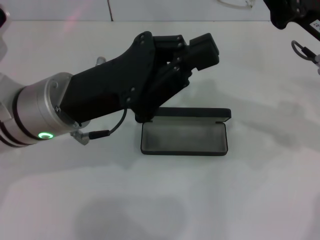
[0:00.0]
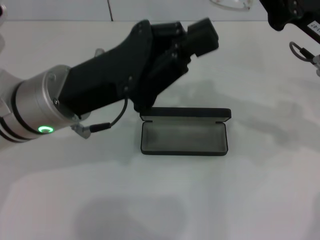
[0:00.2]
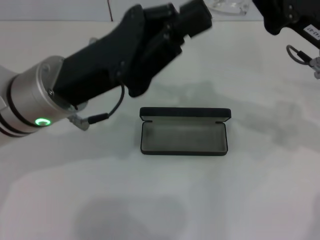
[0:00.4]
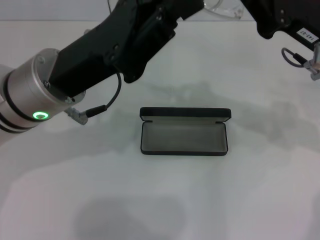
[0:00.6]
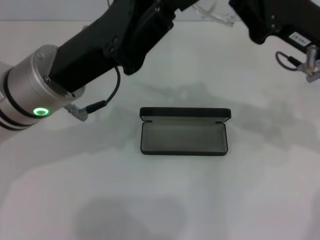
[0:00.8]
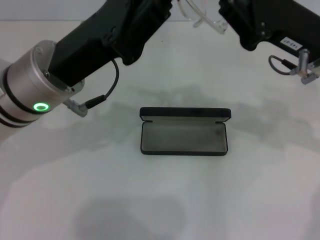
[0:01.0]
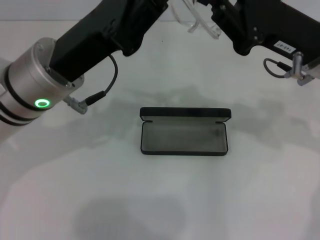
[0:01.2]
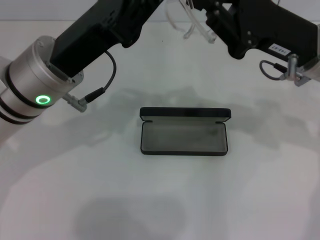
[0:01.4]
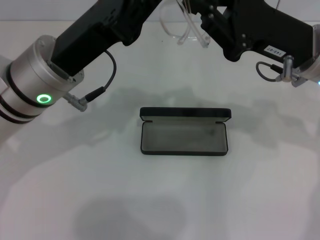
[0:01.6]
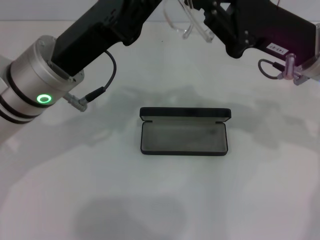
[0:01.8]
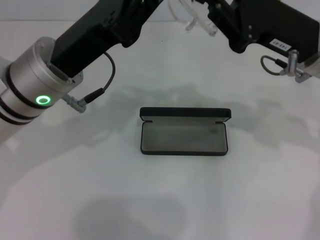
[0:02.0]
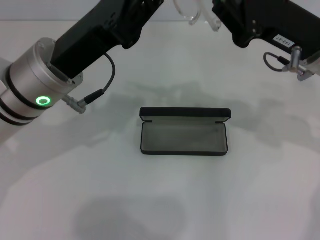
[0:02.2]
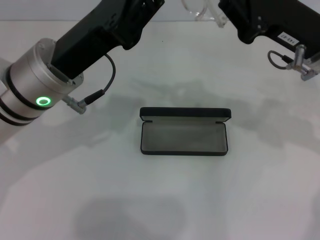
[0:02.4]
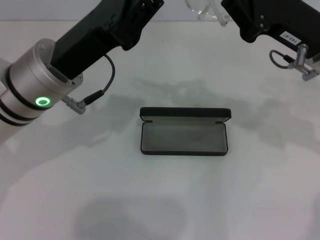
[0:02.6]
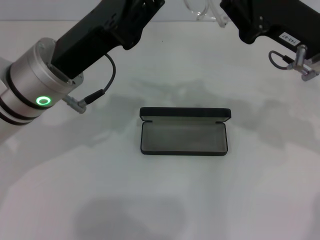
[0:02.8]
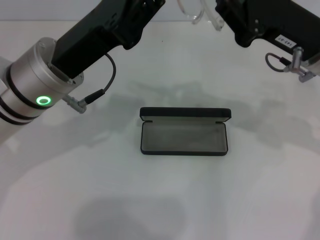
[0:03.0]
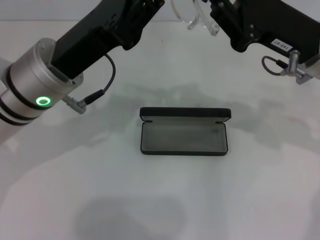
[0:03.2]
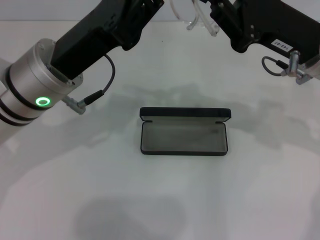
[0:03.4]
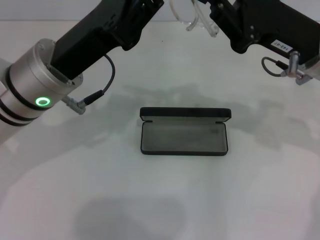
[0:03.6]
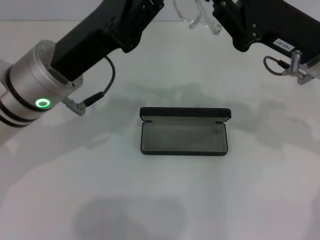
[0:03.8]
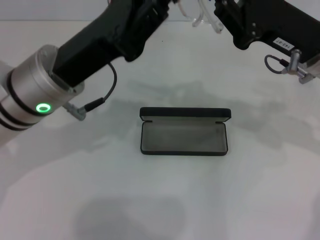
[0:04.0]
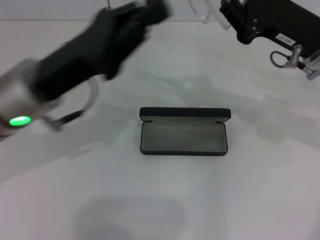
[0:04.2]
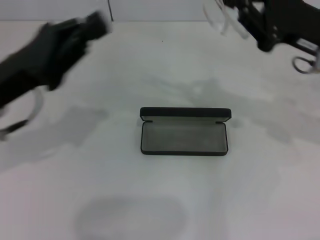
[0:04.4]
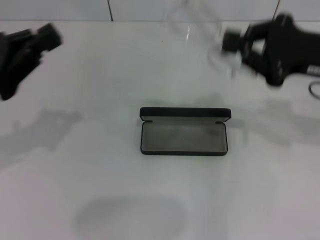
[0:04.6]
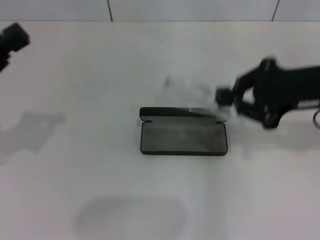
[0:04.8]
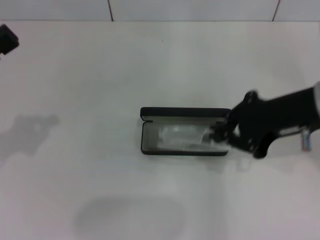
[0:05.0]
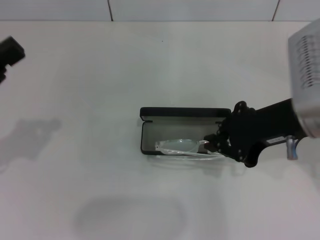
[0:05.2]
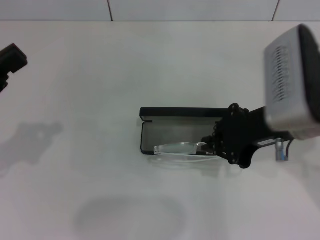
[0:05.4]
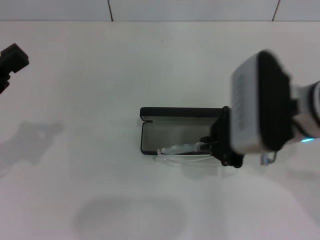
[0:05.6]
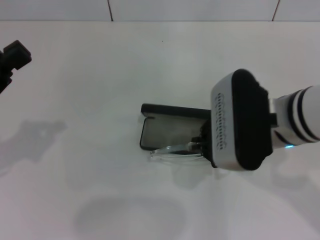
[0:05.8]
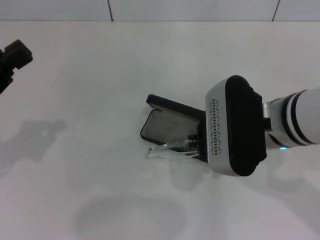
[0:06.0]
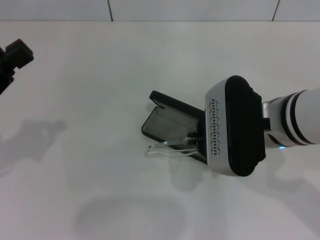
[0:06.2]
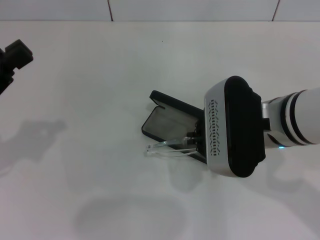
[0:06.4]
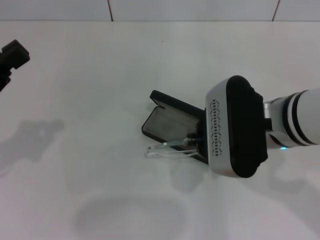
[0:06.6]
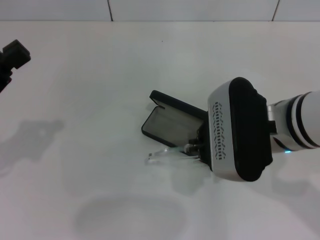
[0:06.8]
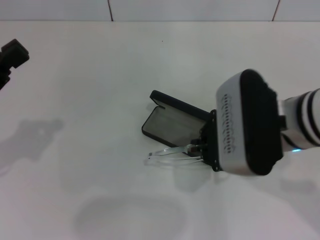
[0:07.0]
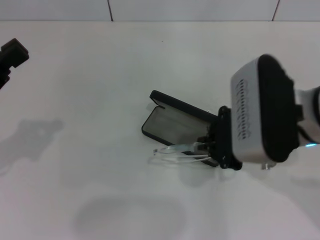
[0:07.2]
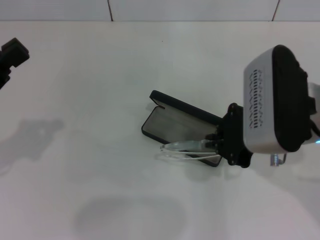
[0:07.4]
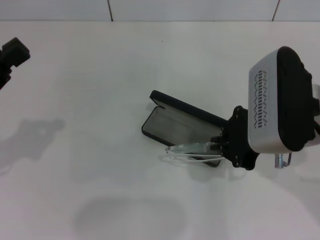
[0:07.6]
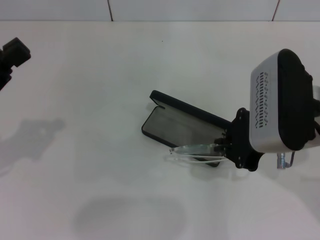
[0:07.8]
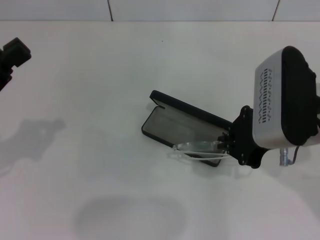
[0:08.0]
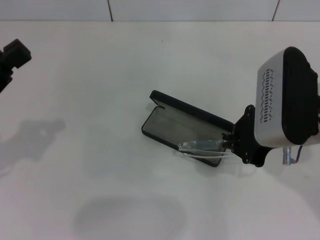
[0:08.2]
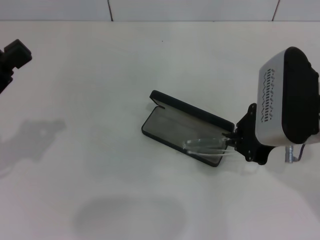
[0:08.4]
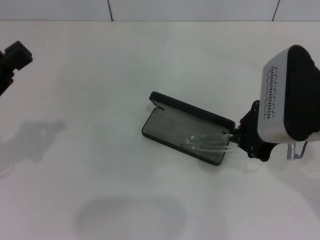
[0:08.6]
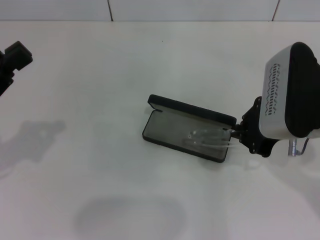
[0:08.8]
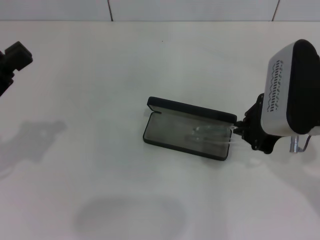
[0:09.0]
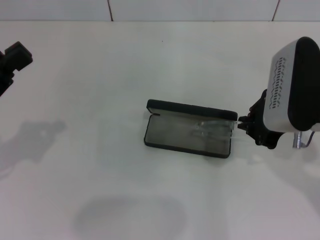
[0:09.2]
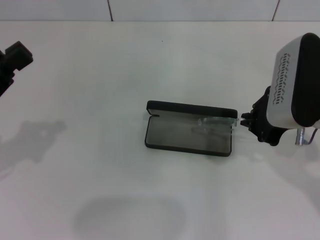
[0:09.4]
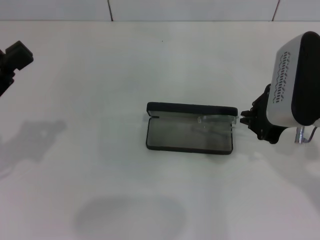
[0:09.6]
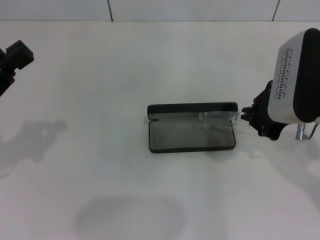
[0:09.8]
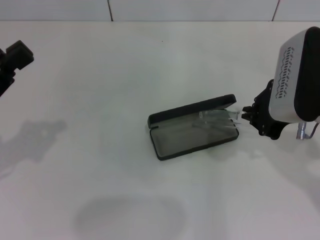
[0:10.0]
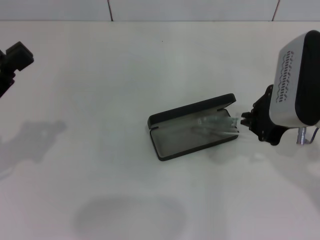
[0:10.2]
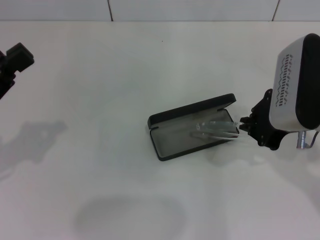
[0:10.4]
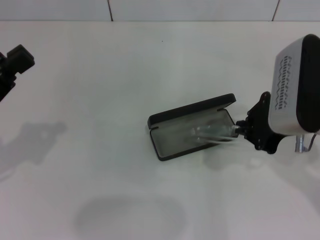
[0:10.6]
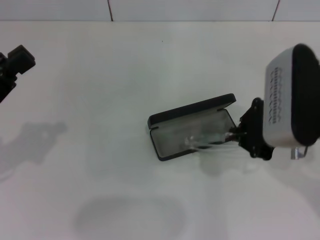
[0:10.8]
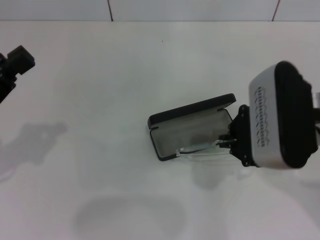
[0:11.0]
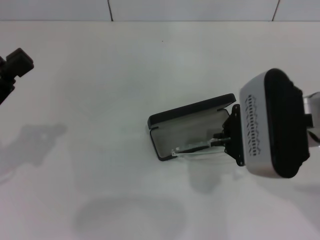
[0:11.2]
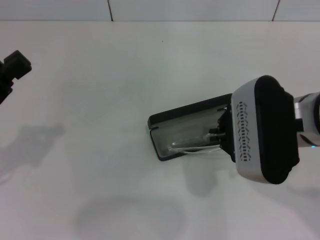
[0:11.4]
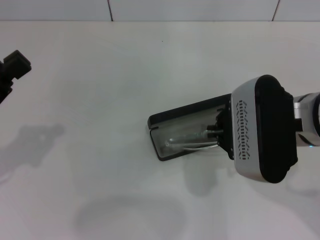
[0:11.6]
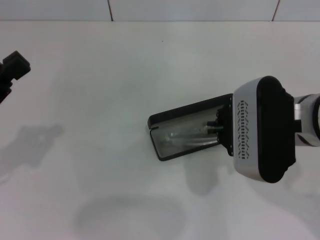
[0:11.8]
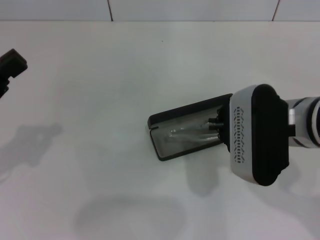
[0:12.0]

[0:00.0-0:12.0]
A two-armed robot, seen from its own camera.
0:01.6 to 0:03.0: There are only small adjustments of the grippers.
0:03.0 to 0:04.4: The left gripper heads to the left, covering approximately 10 cm.
0:04.4 to 0:06.0: The right gripper heads to the left and backward, covering about 15 cm; the left gripper shifts approximately 5 cm to the left.
0:06.0 to 0:07.6: The grippers stay close to where they were, moving slightly.
0:07.6 to 0:10.4: There are only small adjustments of the grippers.
0:10.4 to 0:12.0: The right gripper changes place by roughly 5 cm.

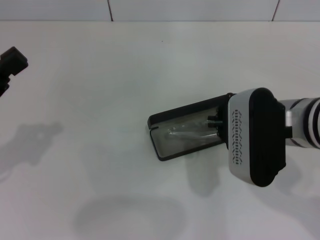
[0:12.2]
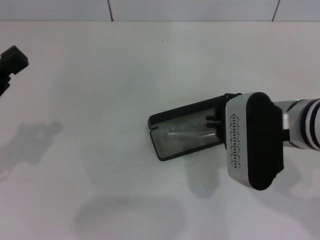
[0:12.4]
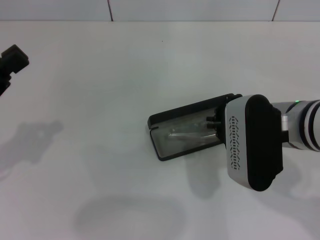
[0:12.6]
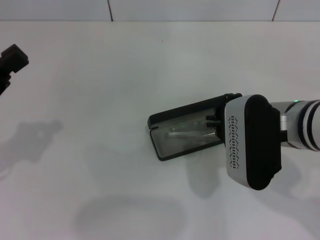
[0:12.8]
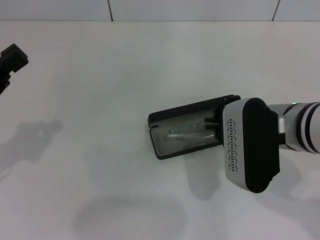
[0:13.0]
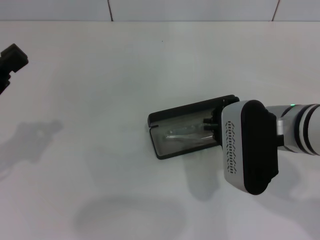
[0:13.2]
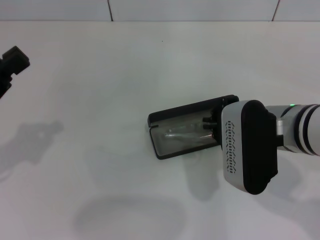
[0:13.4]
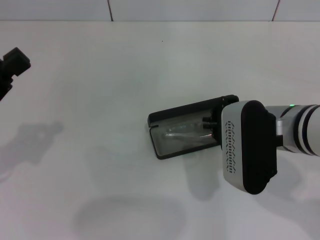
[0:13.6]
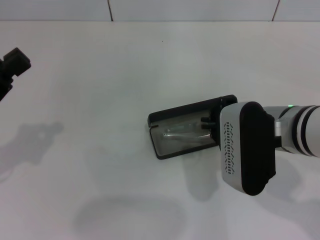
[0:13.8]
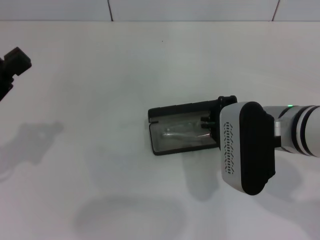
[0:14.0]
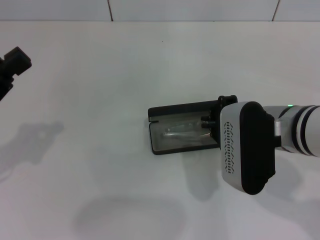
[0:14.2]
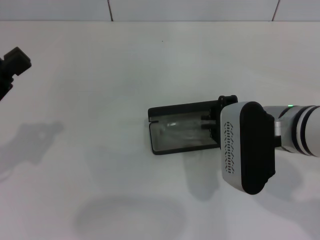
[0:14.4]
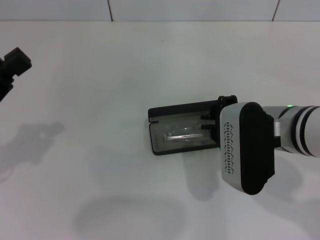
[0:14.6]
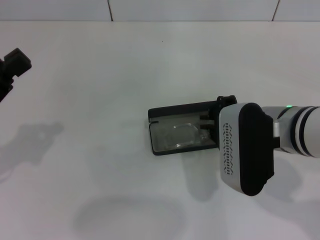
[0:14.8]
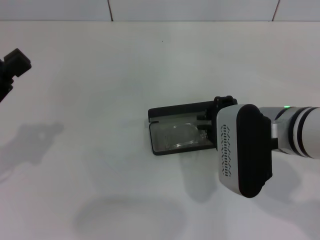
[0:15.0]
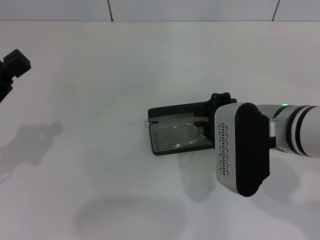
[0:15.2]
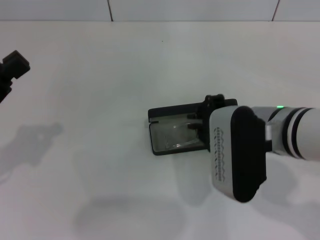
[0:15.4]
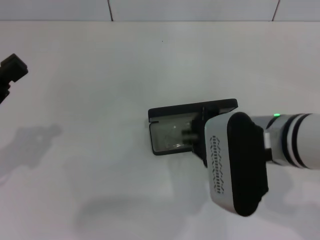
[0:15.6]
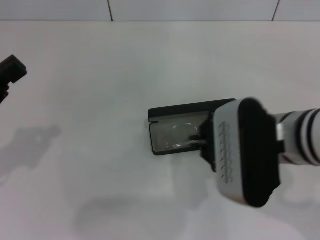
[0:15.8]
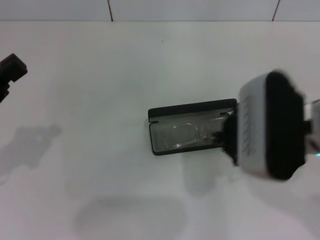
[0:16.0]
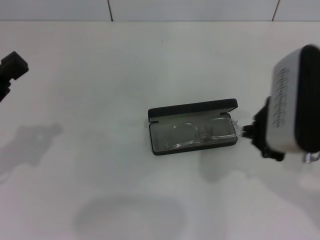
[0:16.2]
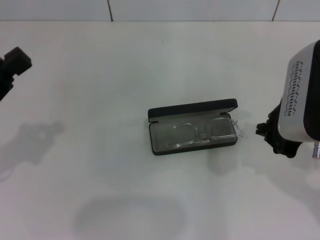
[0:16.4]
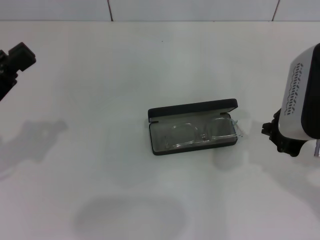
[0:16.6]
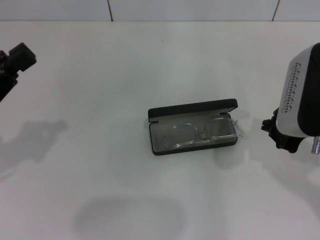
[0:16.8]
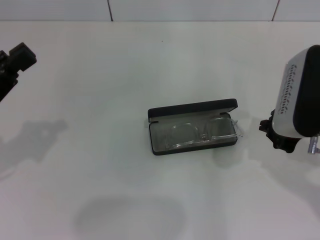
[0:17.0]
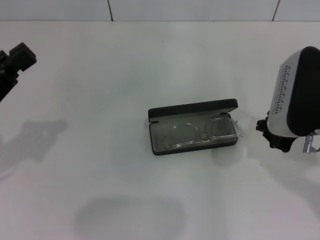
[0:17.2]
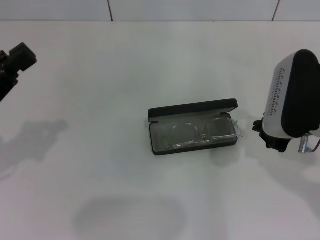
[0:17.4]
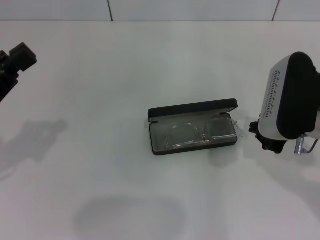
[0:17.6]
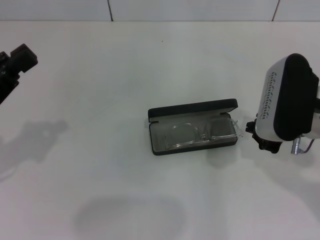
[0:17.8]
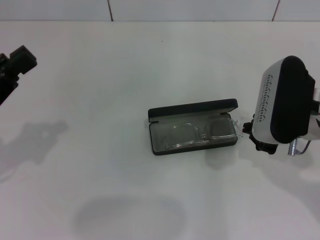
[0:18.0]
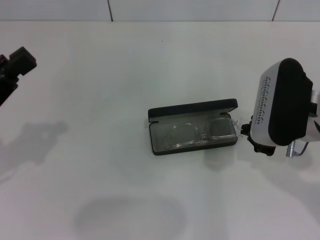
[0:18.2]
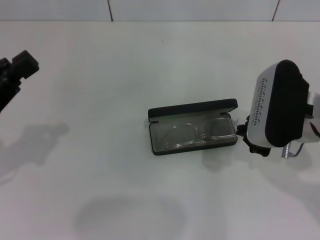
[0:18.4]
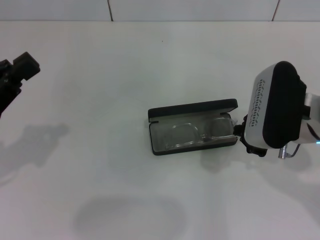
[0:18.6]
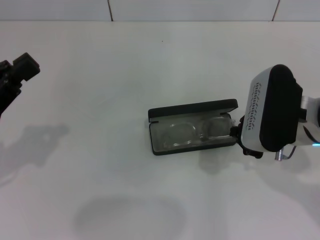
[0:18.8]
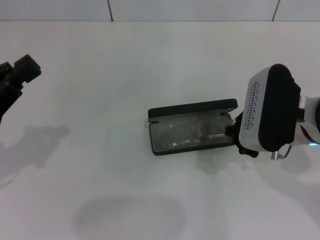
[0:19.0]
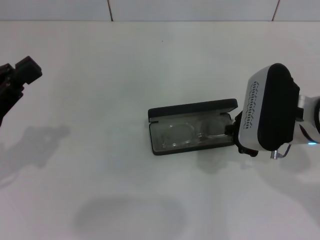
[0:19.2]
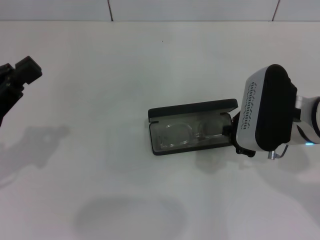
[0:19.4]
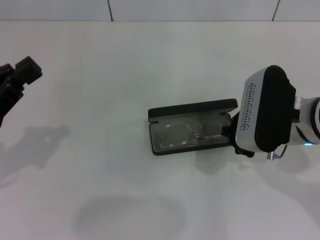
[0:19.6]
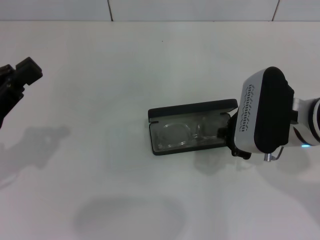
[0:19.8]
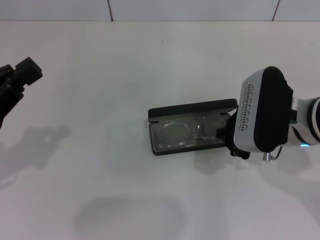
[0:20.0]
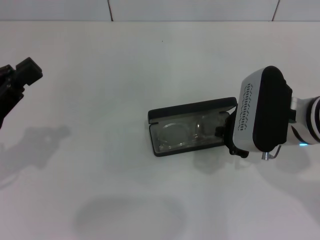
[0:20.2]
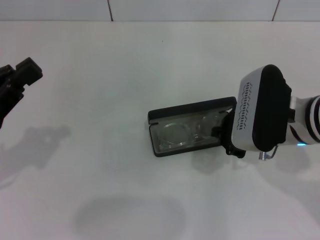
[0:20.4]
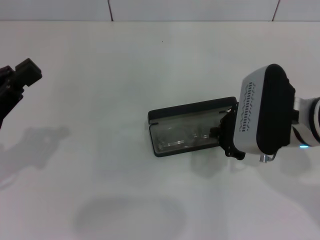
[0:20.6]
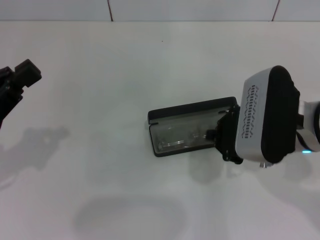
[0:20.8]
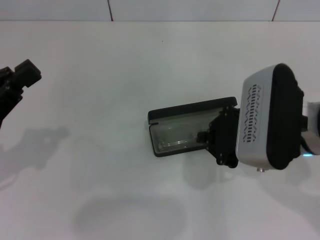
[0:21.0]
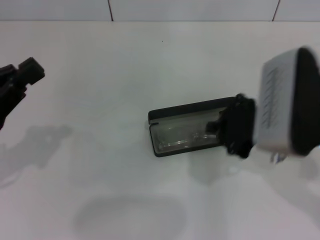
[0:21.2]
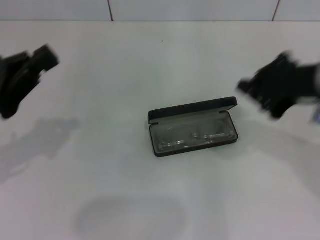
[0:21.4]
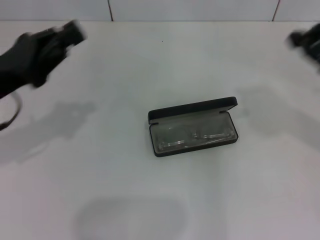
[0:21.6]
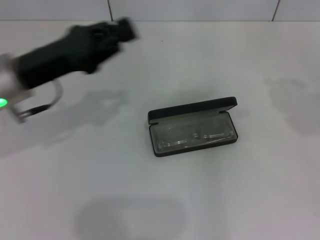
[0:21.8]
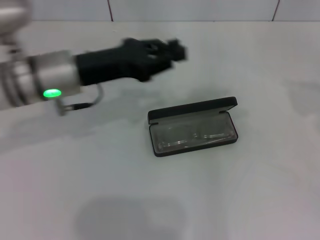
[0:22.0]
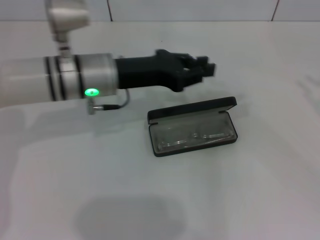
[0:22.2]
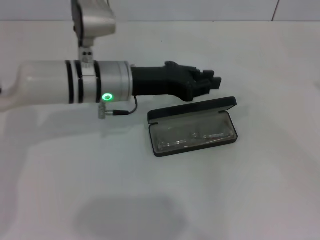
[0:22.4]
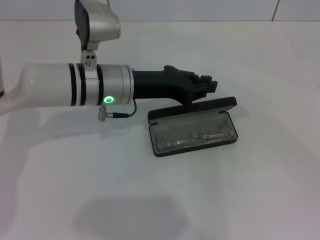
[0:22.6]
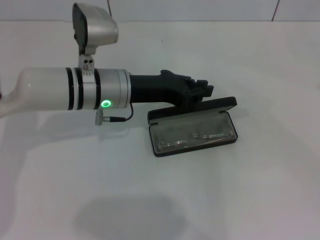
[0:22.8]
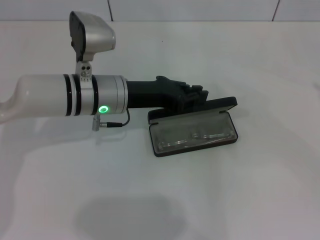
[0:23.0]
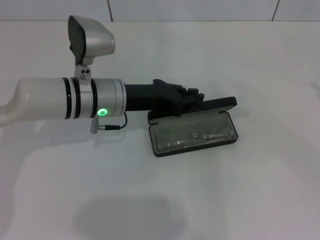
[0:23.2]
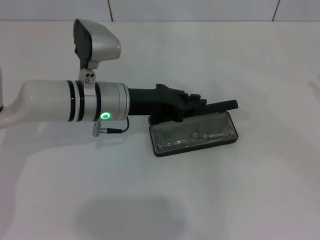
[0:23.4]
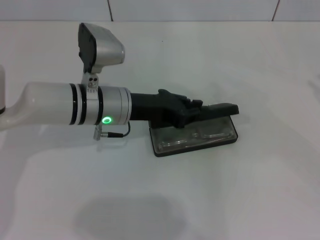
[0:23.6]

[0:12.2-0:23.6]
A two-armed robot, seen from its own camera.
Step, 0:12.2 to 0:20.8: Put the glasses into the case with your right hand.
0:12.2 to 0:13.6: There are only small adjustments of the grippers.
0:13.6 to 0:15.0: Neither gripper changes place.
0:15.0 to 0:16.4: The right gripper goes approximately 10 cm upward and to the right.
0:16.4 to 0:17.8: The right gripper changes place by roughly 5 cm.
0:17.8 to 0:20.8: The grippers make only small movements.
0:20.8 to 0:22.2: The left gripper shifts about 25 cm to the right and forward. The right gripper travels to the right by some 25 cm.
0:22.2 to 0:23.6: The grippers stay close to where they were, moving slightly.
